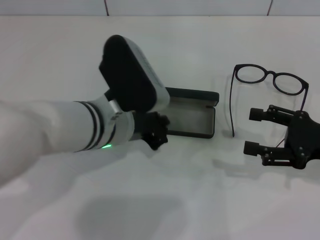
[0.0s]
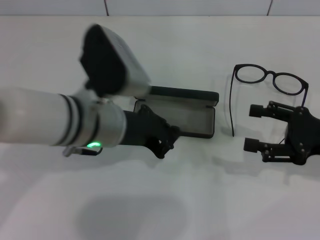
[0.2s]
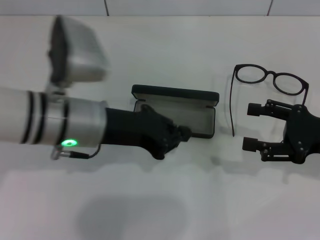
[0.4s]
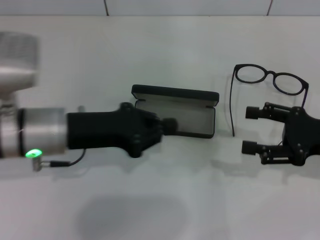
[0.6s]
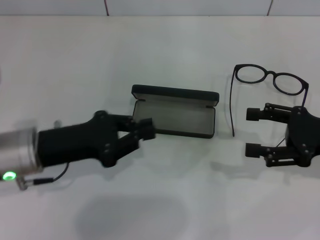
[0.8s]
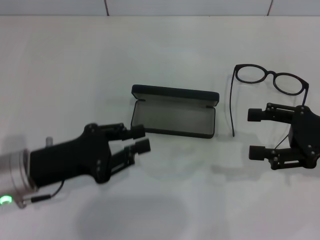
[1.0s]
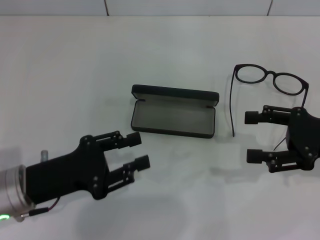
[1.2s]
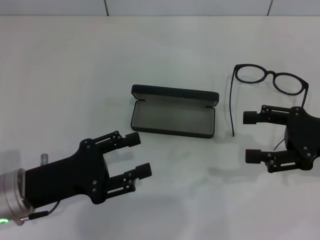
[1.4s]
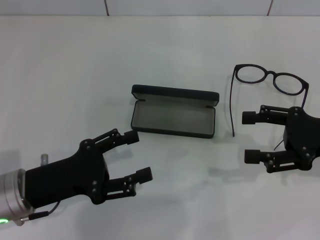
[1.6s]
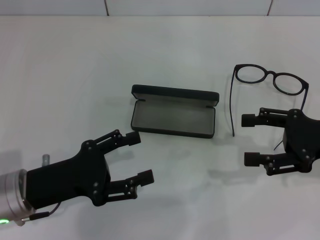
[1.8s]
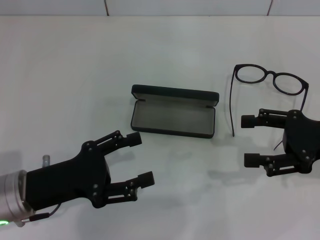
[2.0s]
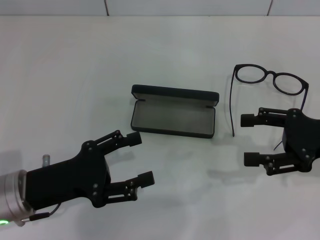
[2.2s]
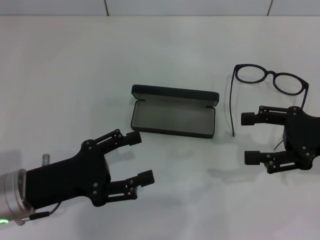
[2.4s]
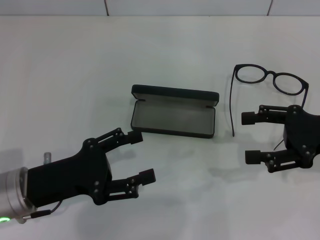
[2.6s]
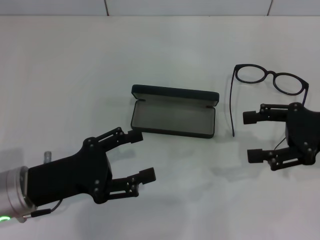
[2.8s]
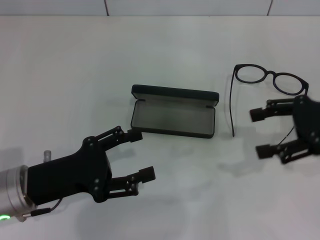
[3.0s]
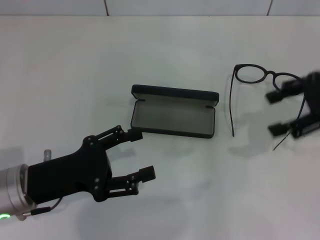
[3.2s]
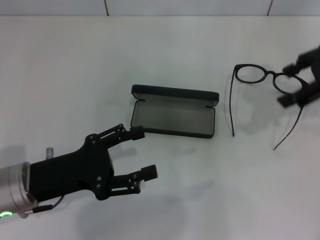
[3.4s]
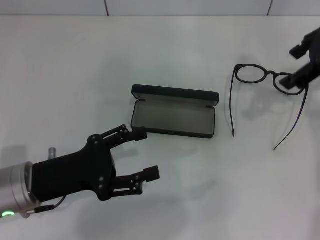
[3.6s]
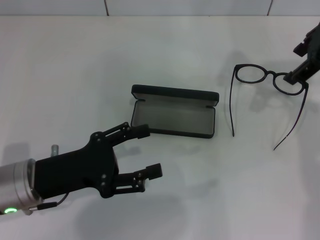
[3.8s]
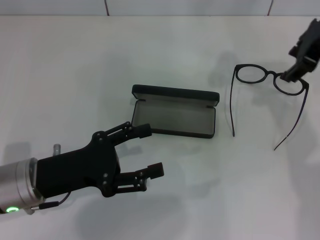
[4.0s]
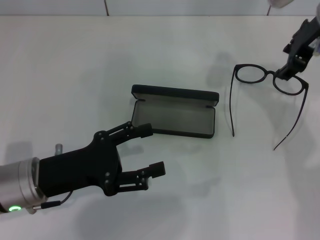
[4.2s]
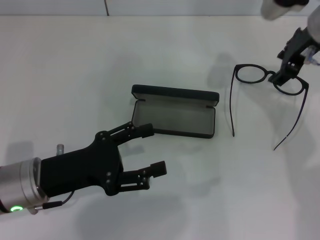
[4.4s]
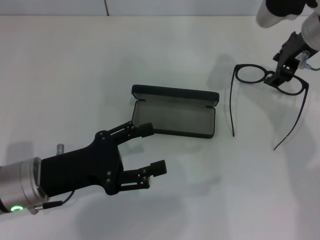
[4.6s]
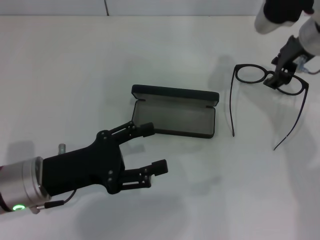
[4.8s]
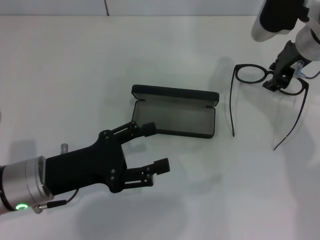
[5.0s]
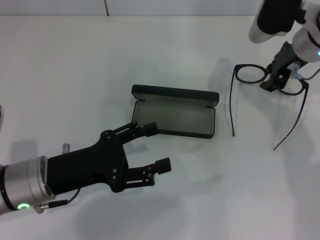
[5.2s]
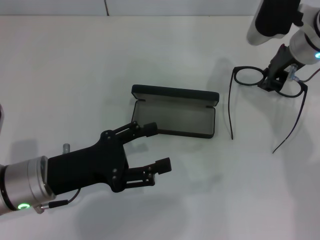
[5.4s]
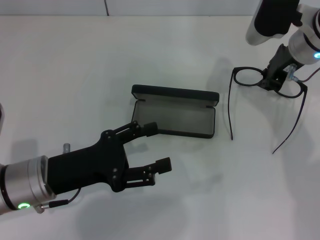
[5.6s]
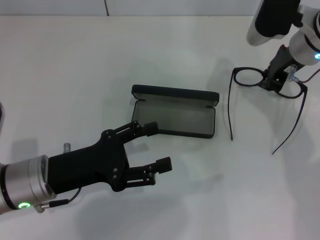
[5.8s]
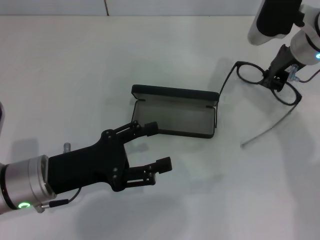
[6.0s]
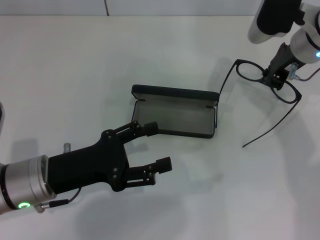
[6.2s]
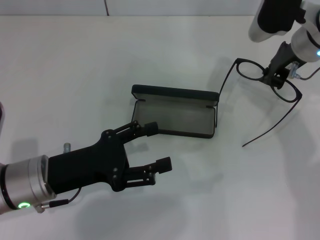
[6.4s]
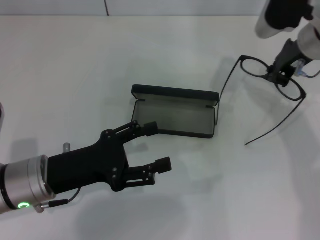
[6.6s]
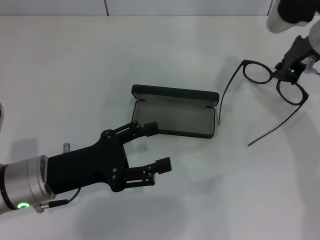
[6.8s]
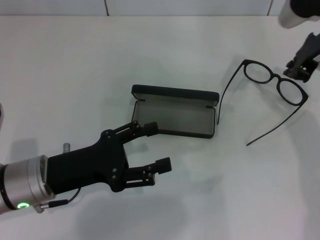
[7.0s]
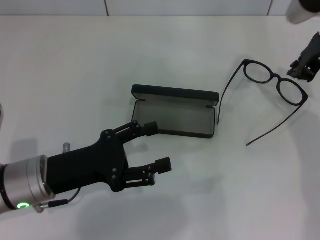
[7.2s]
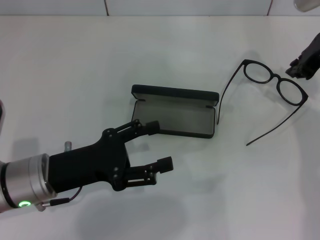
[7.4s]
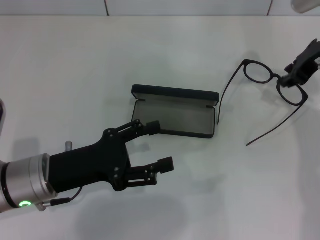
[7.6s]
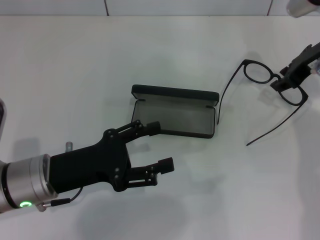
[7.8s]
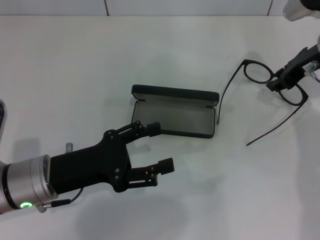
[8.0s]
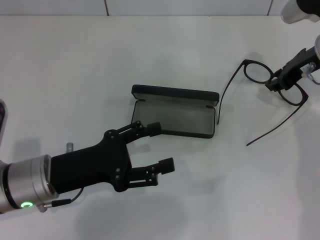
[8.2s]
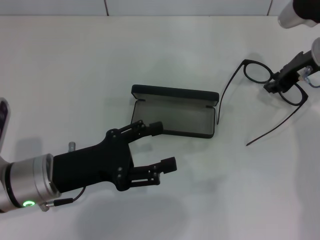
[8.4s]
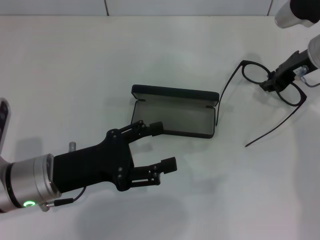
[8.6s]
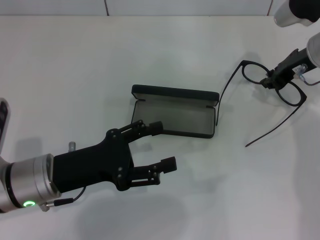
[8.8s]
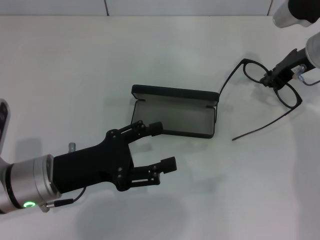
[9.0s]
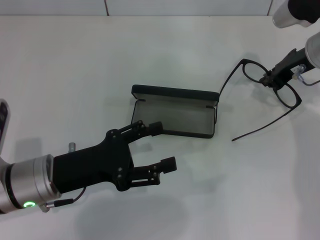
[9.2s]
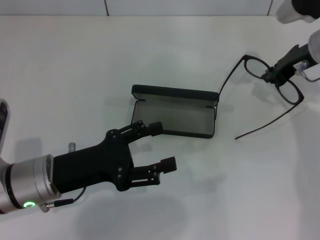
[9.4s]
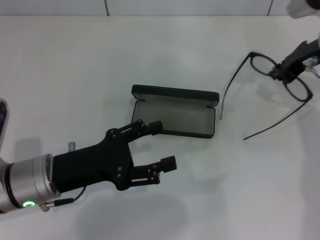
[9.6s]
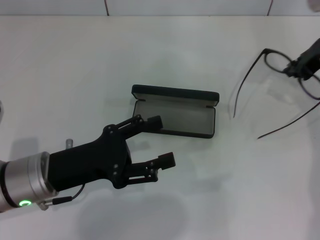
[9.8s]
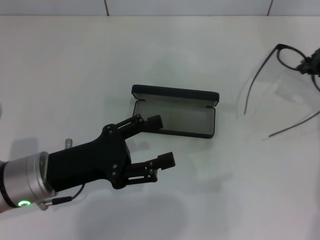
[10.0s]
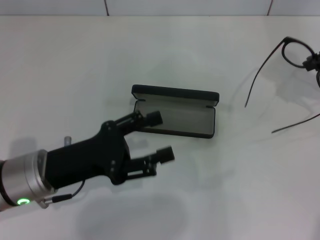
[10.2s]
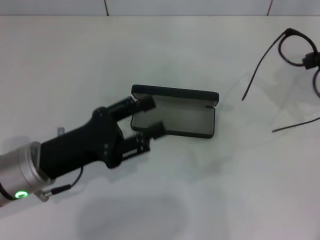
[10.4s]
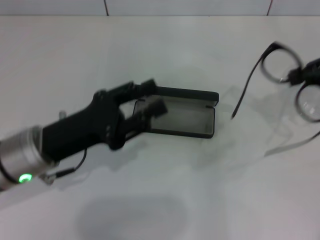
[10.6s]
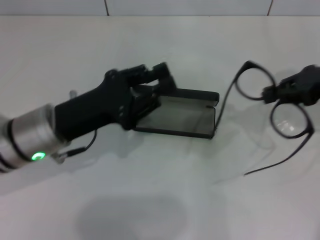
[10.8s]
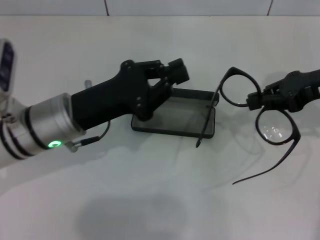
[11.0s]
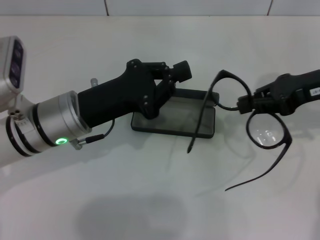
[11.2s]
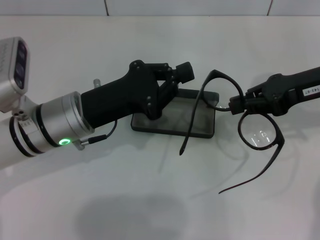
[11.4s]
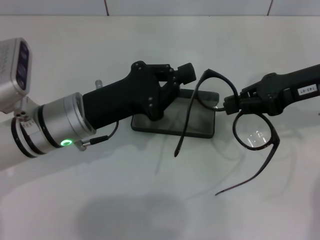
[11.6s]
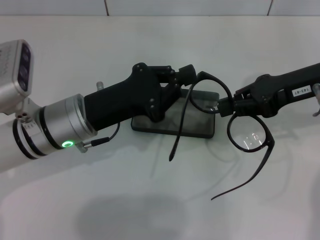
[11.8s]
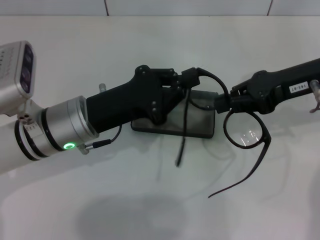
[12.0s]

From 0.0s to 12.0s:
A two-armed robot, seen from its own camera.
Step, from 0.0s to 5.8s: Grab the eyeglass frame with your right hand.
From 0.0s to 1.6s: The left gripper is displaced to the left, backward and downward by some 15 cm, and opens up.
From 1.6s to 3.0s: The right gripper shifts by roughly 5 cm.
From 3.0s to 4.4s: The right gripper shifts approximately 15 cm forward and to the left.
From 4.4s to 6.0s: The right gripper closes its fingers.
From 6.0s to 7.6s: The right gripper moves about 5 cm.
From 7.6s to 9.0s: The grippers make only small movements.
From 9.0s to 10.4s: The right gripper moves to the right and upward, some 15 cm.
From 10.4s to 12.0s: The left gripper heads forward, covering approximately 5 cm, and closes its fingers. Meanwhile the right gripper heads to the left, covering roughly 10 cm.

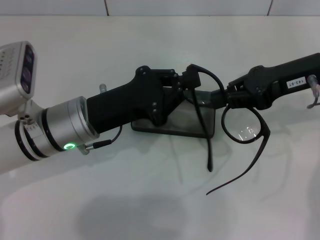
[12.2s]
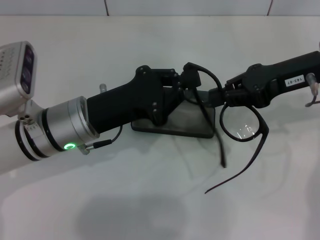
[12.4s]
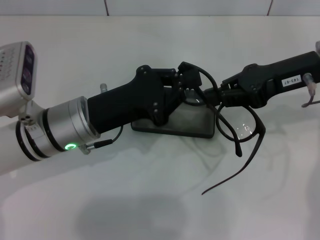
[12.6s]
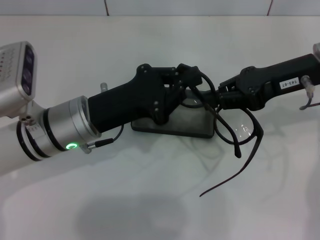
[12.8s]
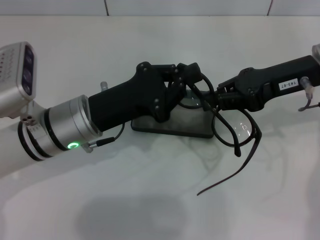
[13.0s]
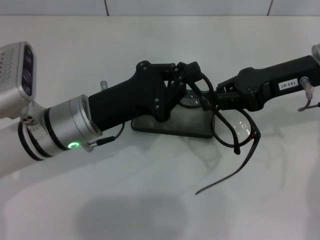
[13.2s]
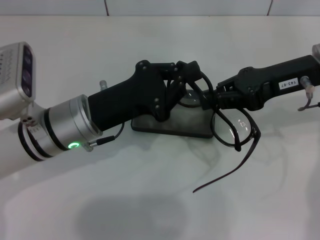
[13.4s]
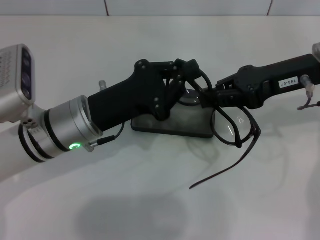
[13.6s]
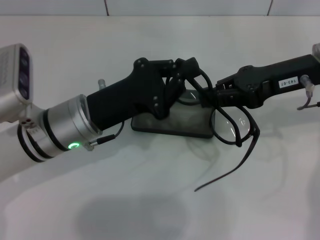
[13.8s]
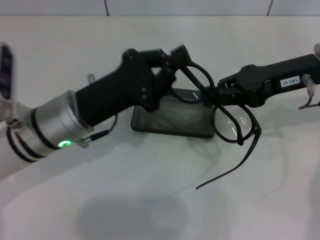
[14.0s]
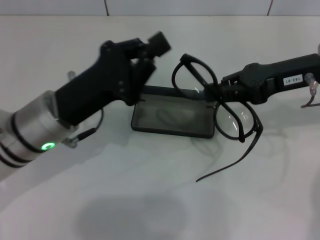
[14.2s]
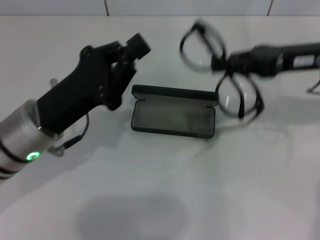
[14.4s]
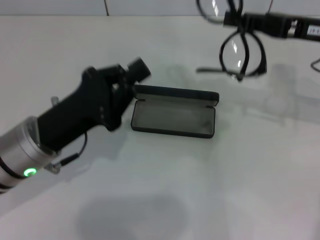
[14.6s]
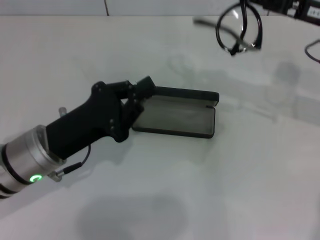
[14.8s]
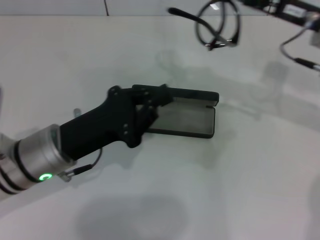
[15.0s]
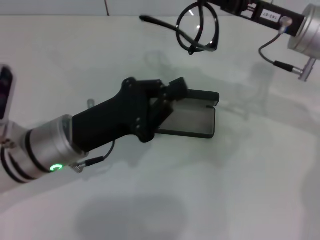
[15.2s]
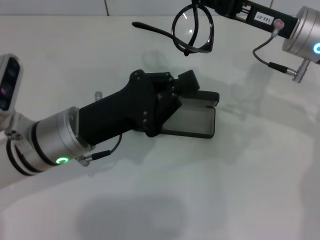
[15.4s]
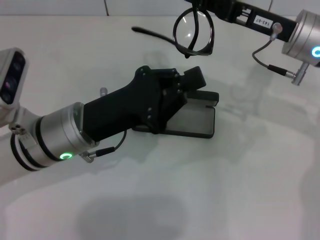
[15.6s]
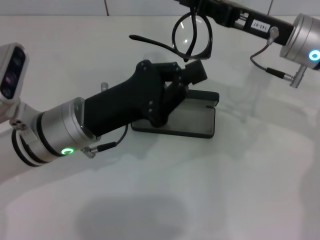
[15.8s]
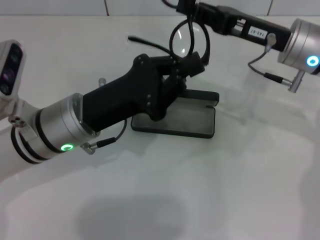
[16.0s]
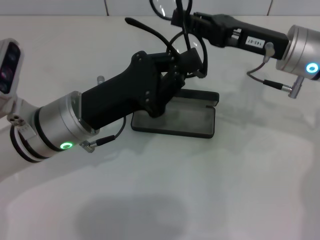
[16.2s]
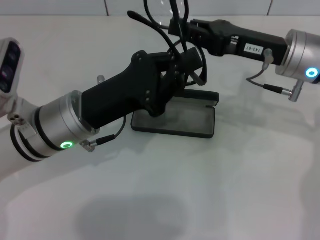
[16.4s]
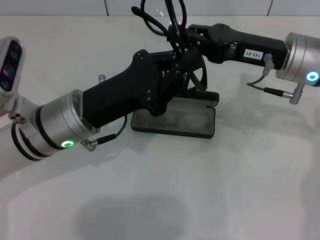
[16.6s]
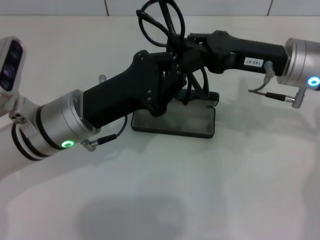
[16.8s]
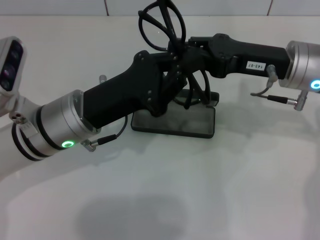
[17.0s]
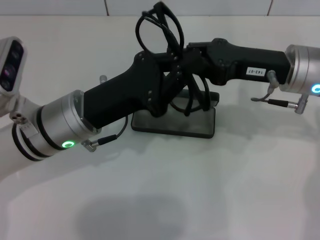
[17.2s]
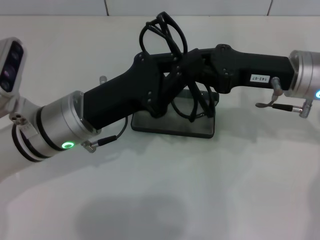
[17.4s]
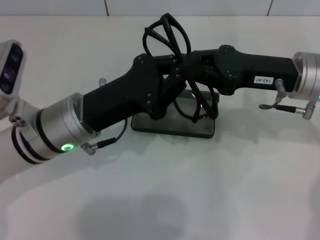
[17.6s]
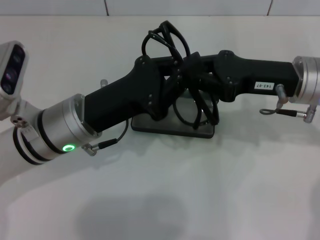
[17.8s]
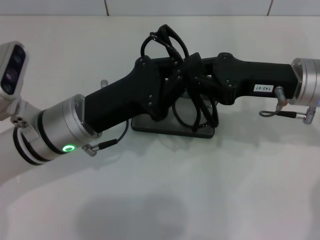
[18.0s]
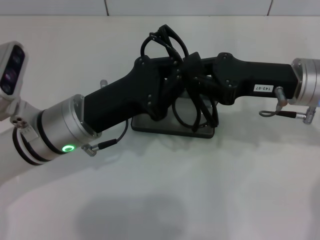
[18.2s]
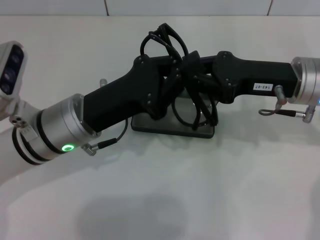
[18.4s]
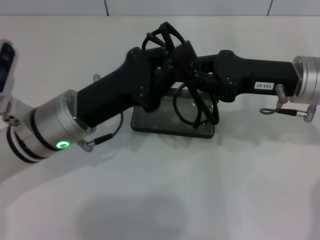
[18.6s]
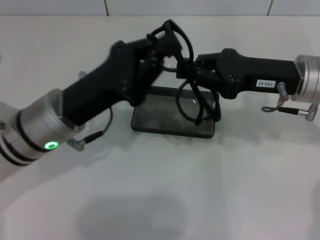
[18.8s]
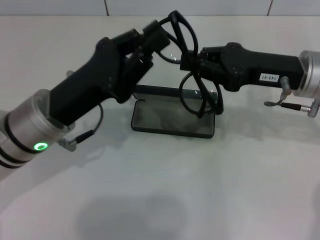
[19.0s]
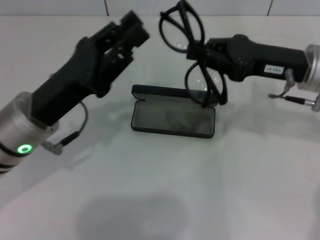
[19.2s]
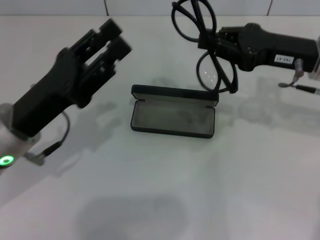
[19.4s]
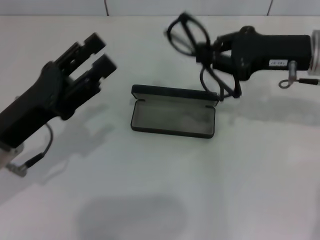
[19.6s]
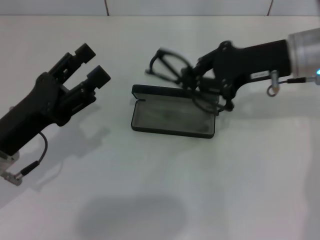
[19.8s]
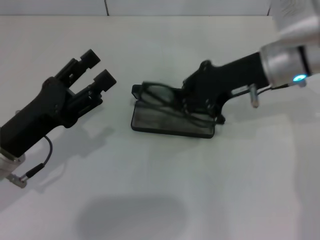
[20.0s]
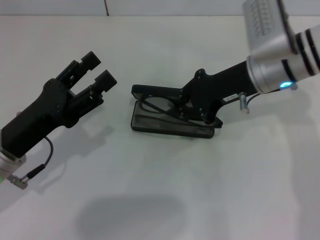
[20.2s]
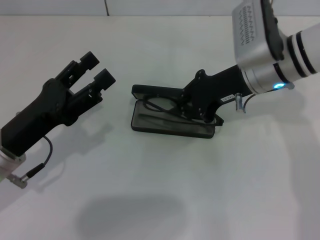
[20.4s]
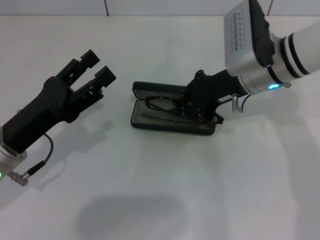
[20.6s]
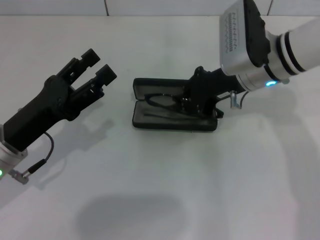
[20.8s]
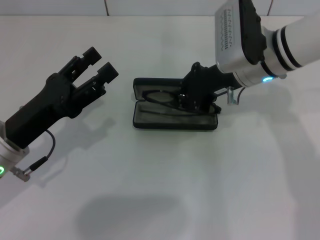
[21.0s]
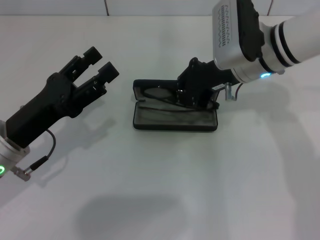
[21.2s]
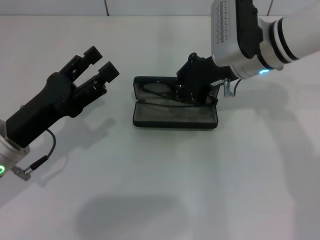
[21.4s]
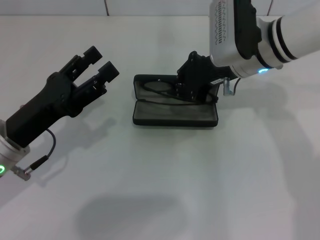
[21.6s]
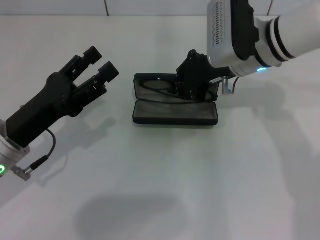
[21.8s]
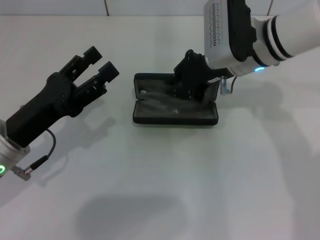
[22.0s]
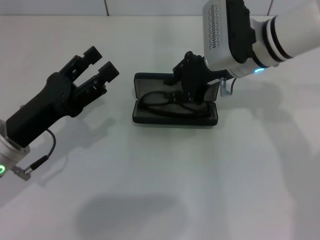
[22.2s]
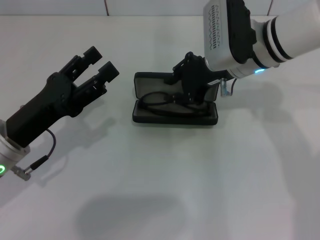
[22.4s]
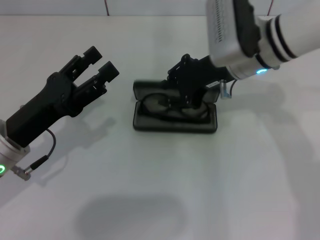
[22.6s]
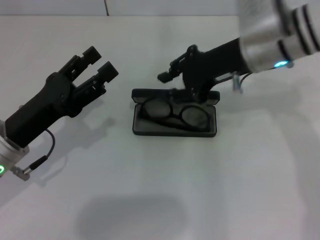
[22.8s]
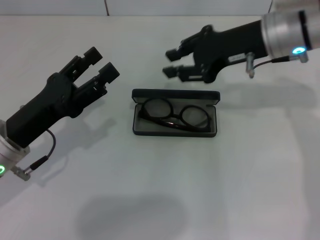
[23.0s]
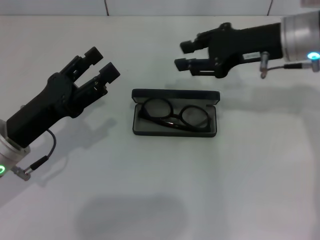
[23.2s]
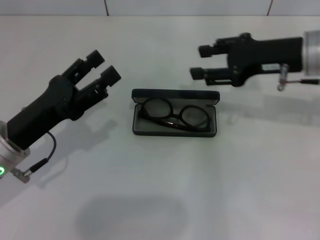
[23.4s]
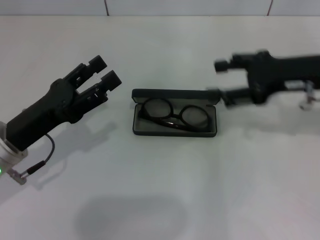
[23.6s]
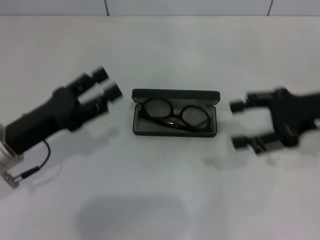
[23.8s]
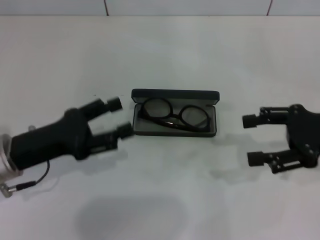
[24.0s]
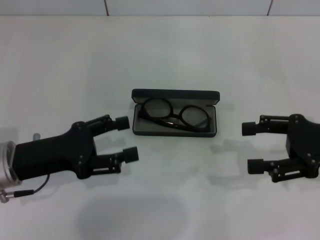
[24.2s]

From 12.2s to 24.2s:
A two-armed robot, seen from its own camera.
Step, from 12.2s to 18.8s: Fold the frame with your left hand.
Step, from 19.0s to 22.4s: Put the glasses into the case with your right hand.
From 12.2s to 13.8s: The grippers make only small movements.
From 18.2s to 19.8s: The left gripper is displaced to the left by approximately 10 cm, and opens.
From 19.8s to 21.2s: The right gripper is displaced to the left by some 5 cm.
From 21.2s to 22.6s: There are only small adjustments of the grippers.
From 22.6s to 24.2s: The right gripper travels to the right and backward by about 20 cm, and opens its fingers.
